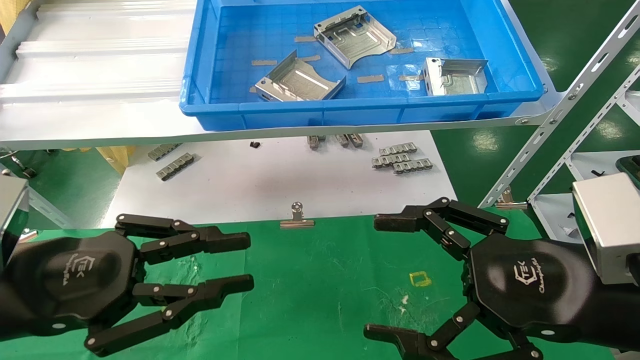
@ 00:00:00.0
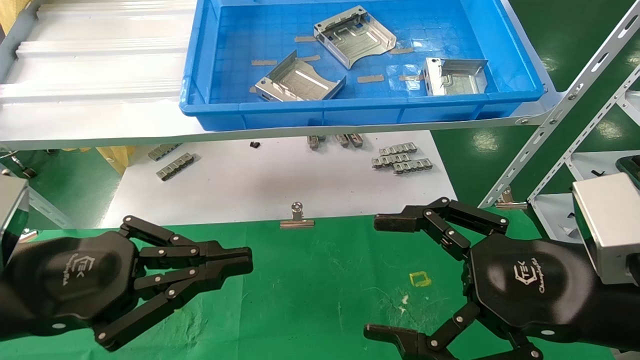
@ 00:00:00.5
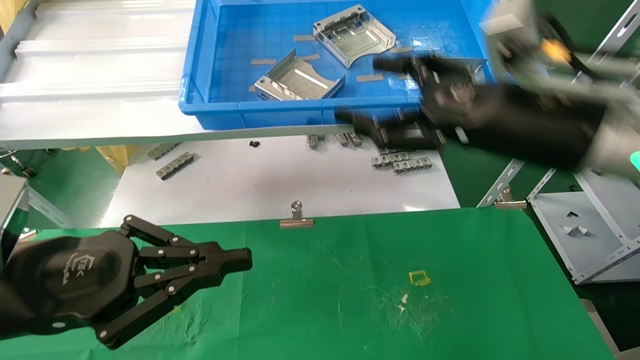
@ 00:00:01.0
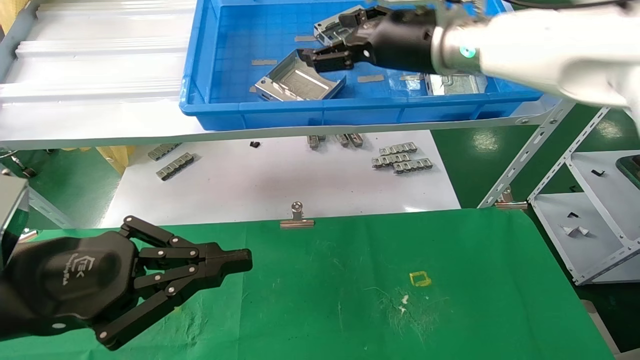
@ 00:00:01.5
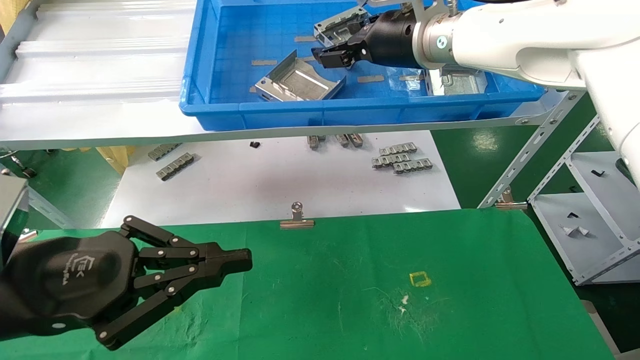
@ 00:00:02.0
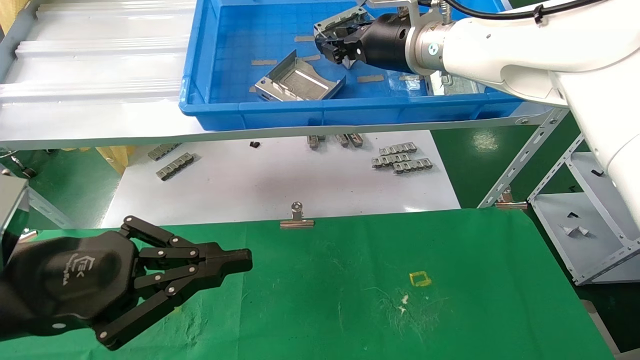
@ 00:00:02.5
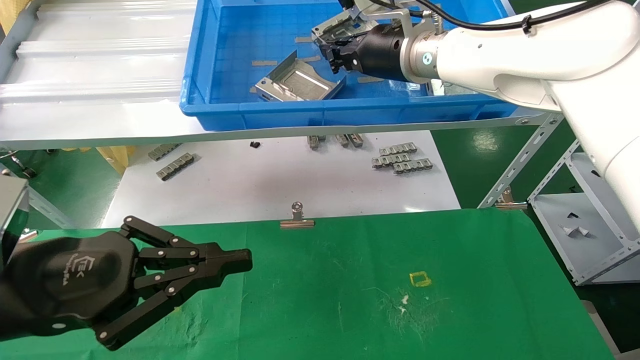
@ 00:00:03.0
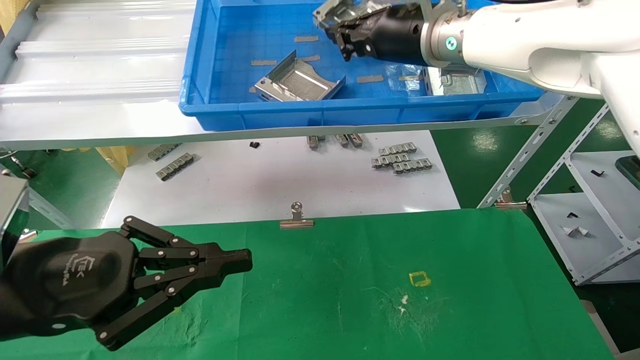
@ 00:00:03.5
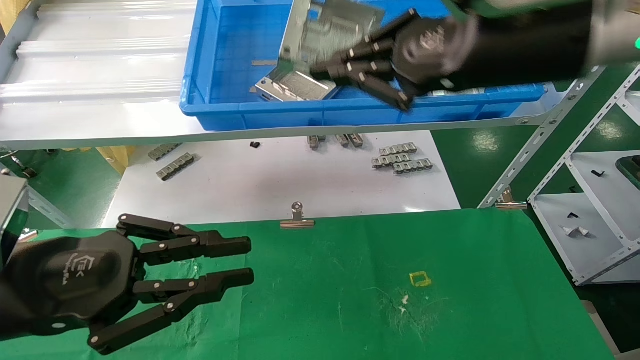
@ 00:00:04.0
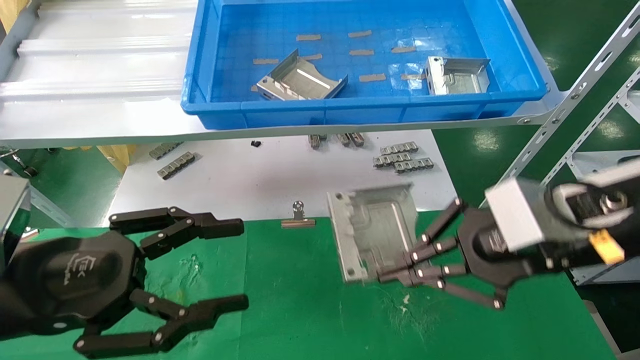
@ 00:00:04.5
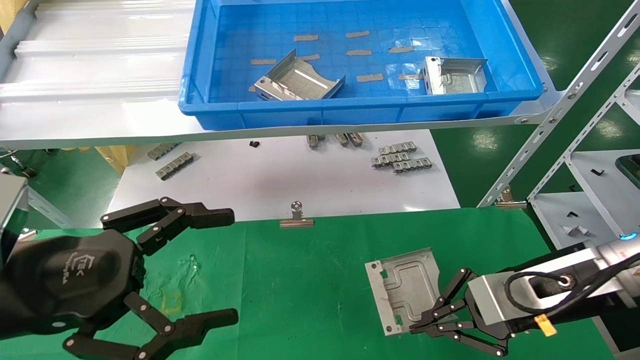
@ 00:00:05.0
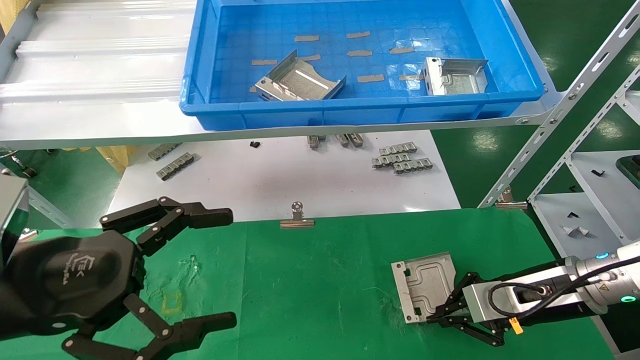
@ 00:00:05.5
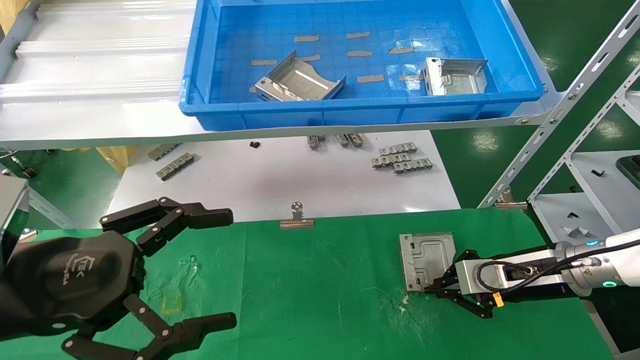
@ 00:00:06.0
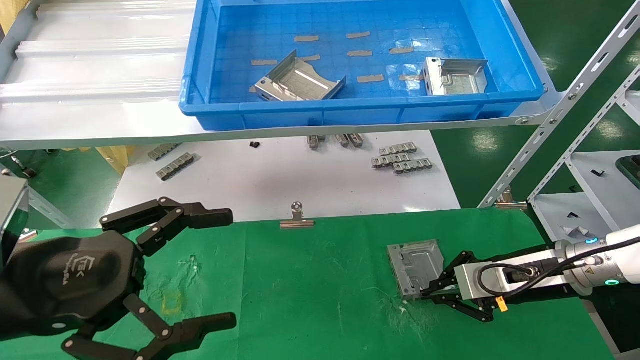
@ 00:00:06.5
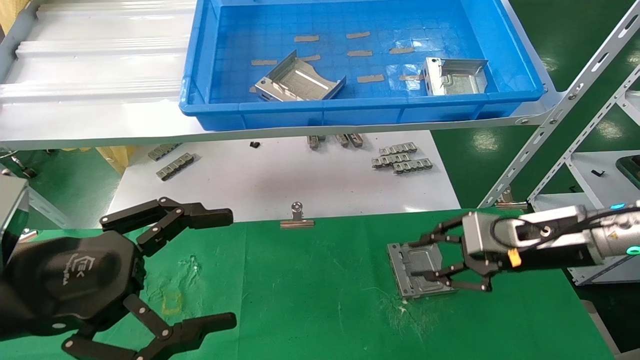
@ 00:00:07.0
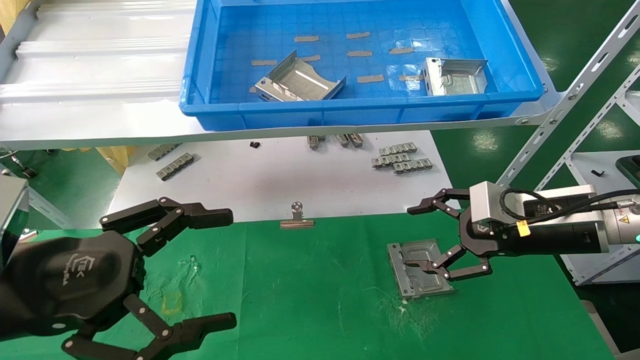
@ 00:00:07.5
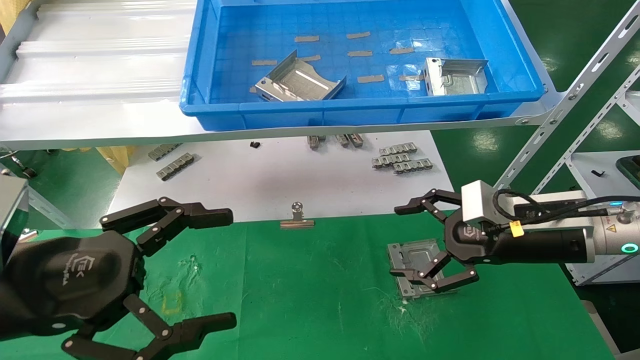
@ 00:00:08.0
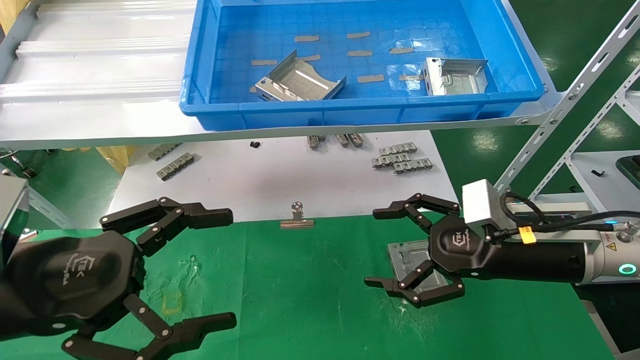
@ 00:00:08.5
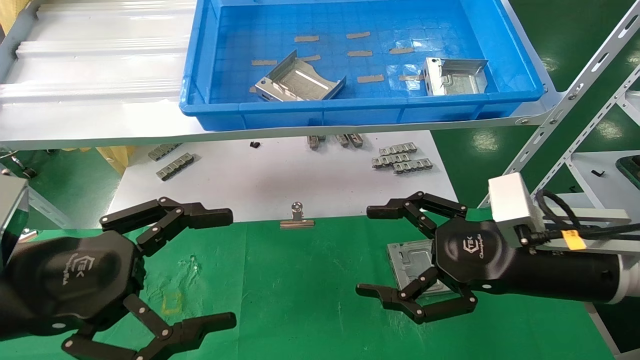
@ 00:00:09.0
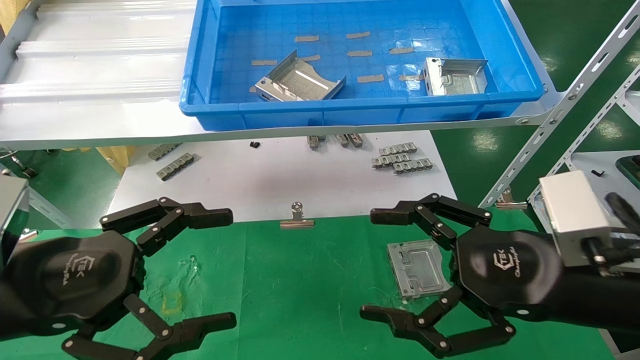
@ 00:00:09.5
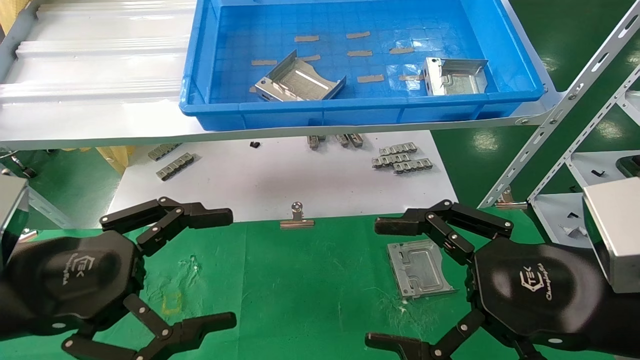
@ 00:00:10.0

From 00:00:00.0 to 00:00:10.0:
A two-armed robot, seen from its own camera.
Task of the whole recording: use the mechanical arm to pick up the parts and place them on the table.
Step, from 00:00:01.5 to 00:00:04.0: Pick up the hard drive bracket from the feeding area.
Step, from 00:00:04.5 to 00:00:07.0: Place the hard drive bracket into the box.
From 00:00:00.0 to 00:00:02.0: The right gripper shifts some 35 cm forward, upward and to the left.
From 00:00:02.0 to 00:00:04.0: The right gripper moves backward and to the right, some 15 cm, and closes.
From 00:00:04.0 to 00:00:06.0: The left gripper opens; the right gripper travels downward and to the right by some 30 cm.
From 00:00:06.0 to 00:00:08.0: The right gripper moves upward, approximately 5 cm, and opens.
From 00:00:08.0 to 00:00:10.0: The right gripper is displaced backward by about 15 cm.
